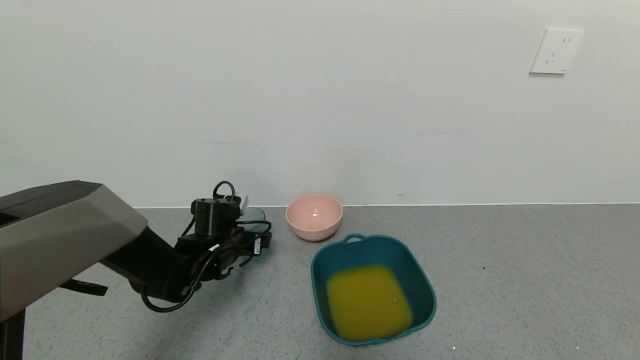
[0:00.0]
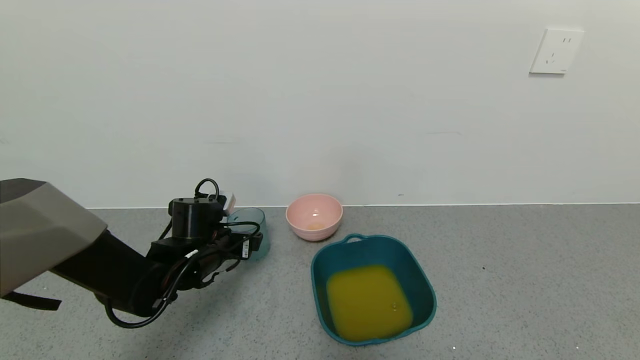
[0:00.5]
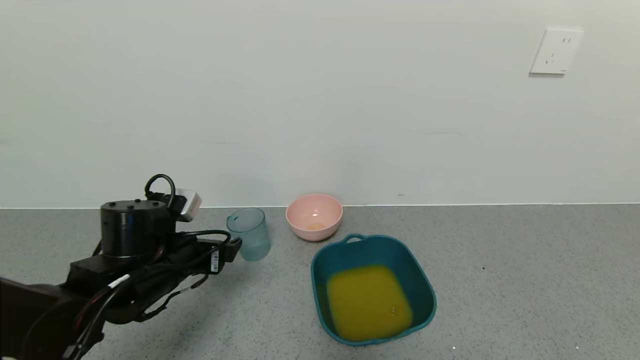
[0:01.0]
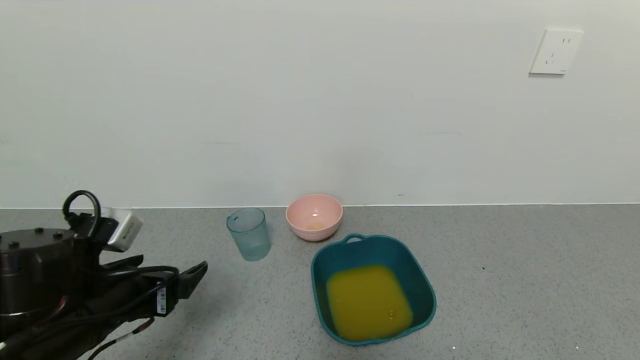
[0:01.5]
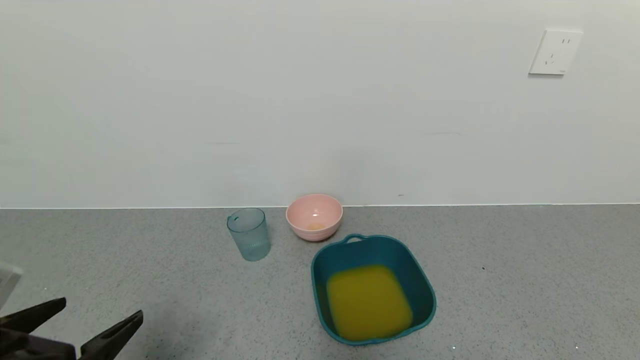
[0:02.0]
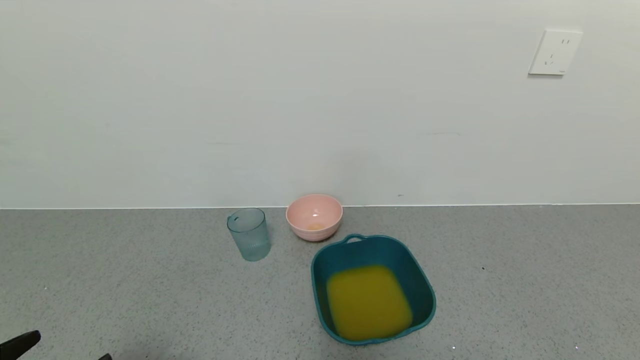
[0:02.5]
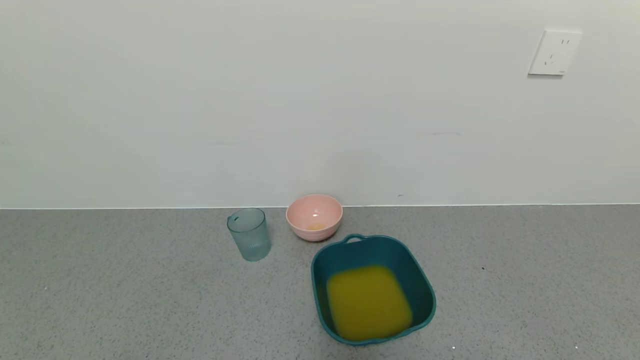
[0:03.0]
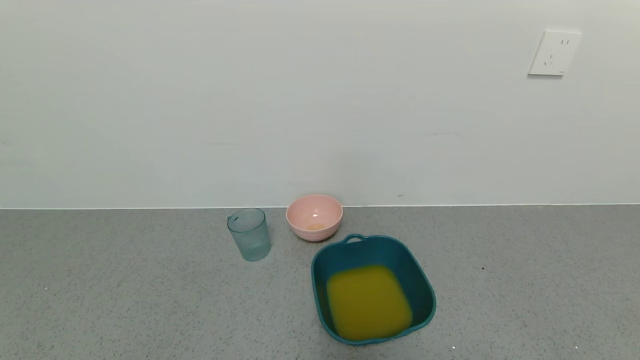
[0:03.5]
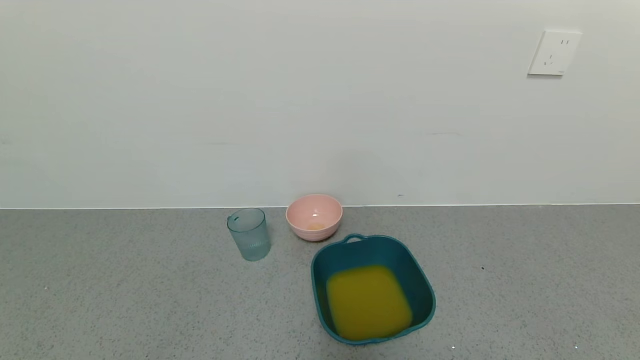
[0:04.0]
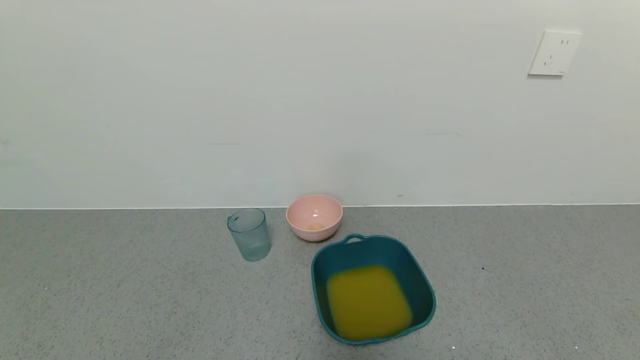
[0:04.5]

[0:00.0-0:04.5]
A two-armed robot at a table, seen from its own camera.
Task of the whole recording: use a gripper to pick up the cup and pour the liquid into a bowl or tray.
0:00.0 to 0:02.0: The left gripper is displaced backward and upward by about 30 cm.
0:02.0 to 0:04.5: The left gripper travels backward and downward by approximately 15 cm.
